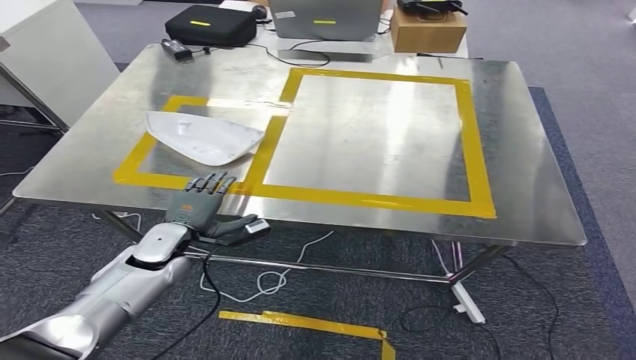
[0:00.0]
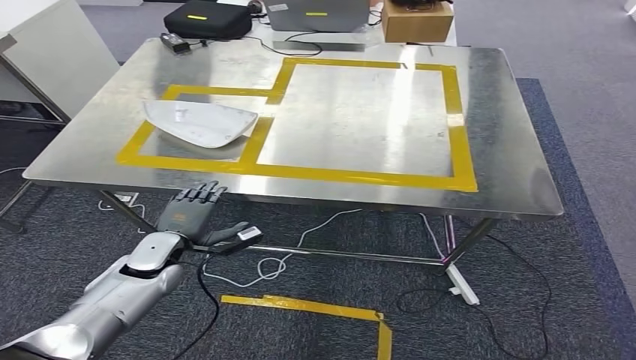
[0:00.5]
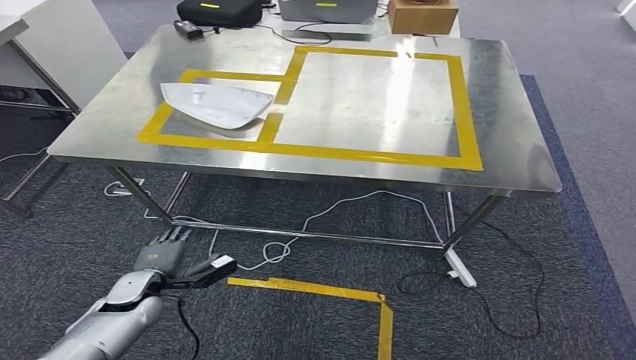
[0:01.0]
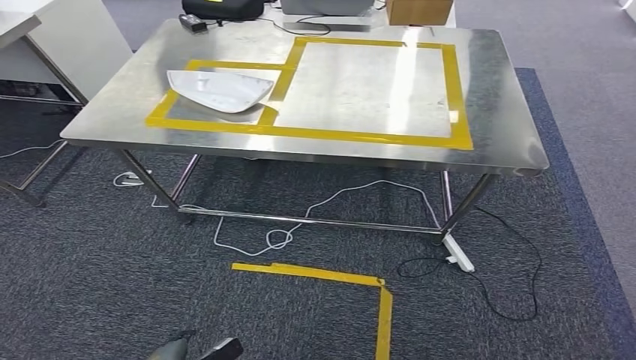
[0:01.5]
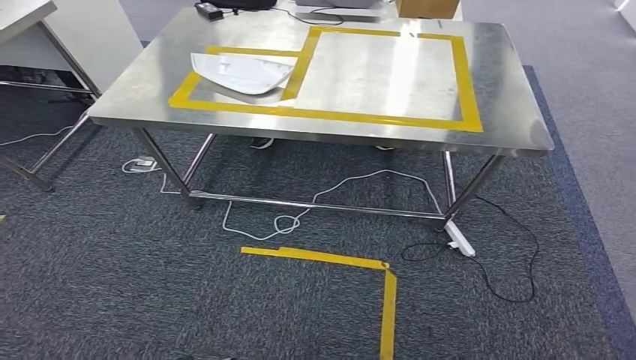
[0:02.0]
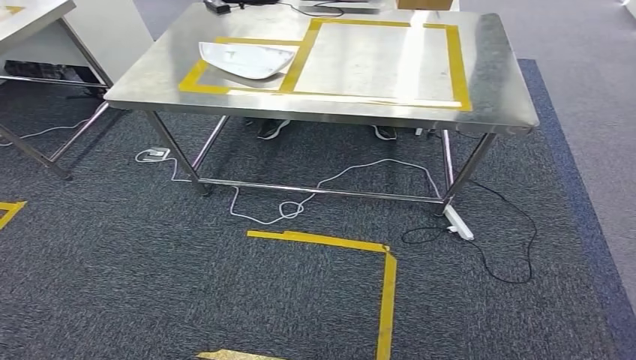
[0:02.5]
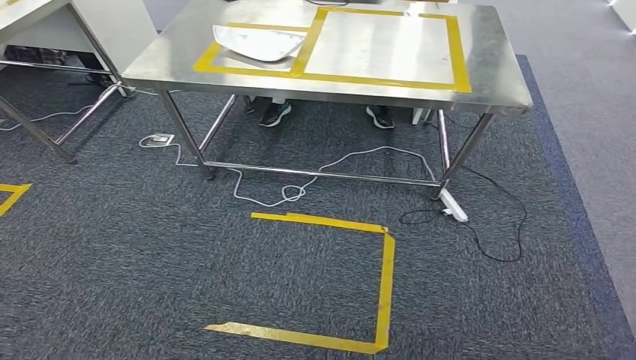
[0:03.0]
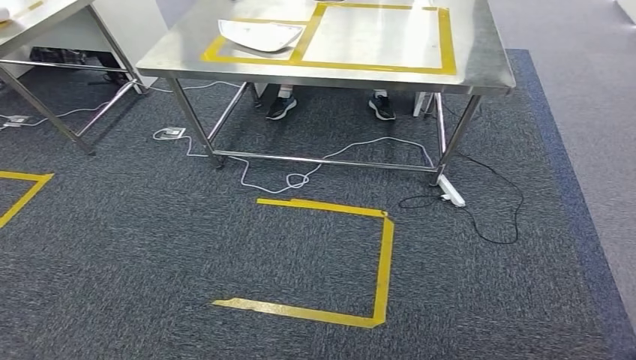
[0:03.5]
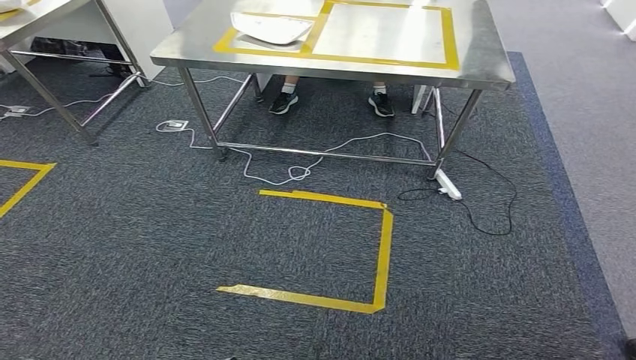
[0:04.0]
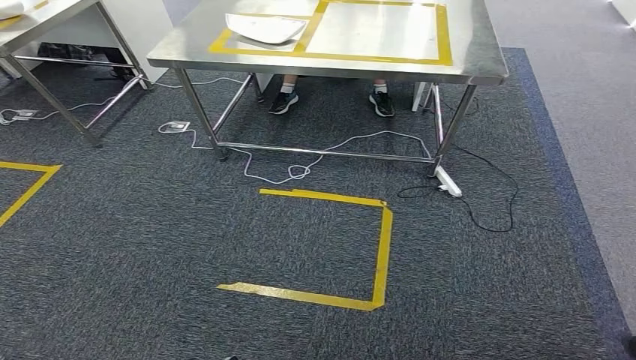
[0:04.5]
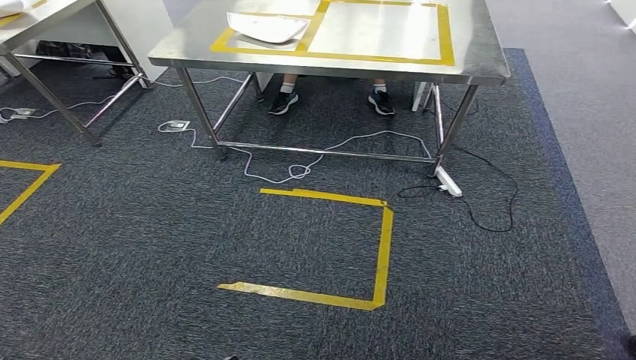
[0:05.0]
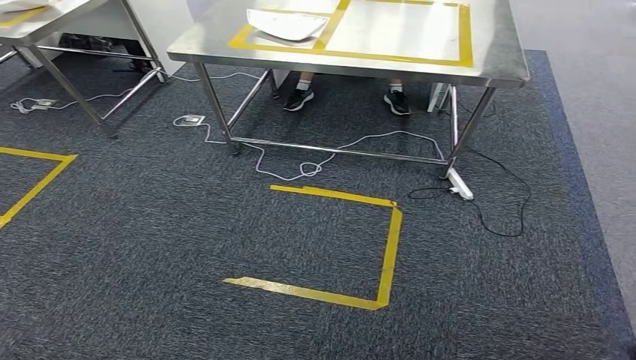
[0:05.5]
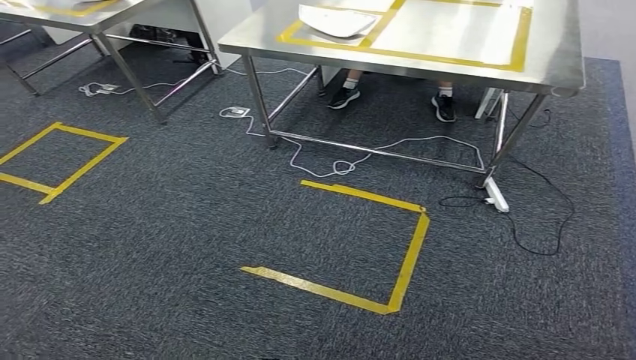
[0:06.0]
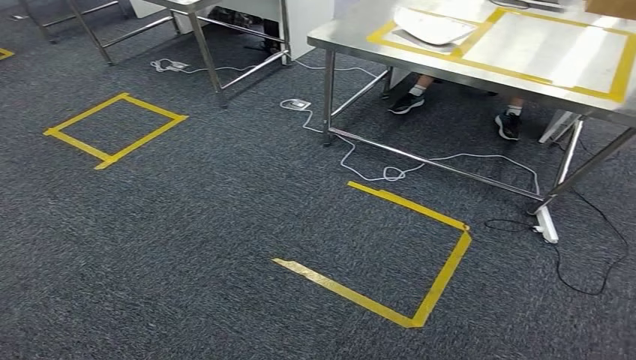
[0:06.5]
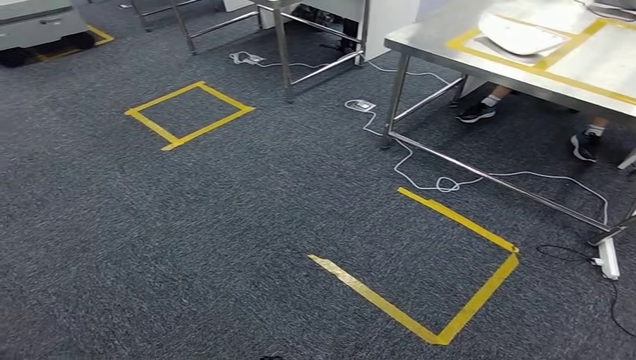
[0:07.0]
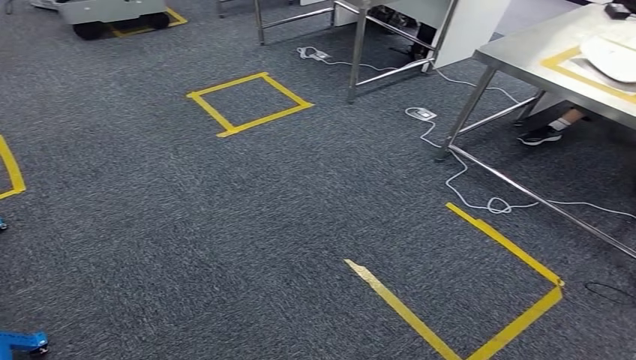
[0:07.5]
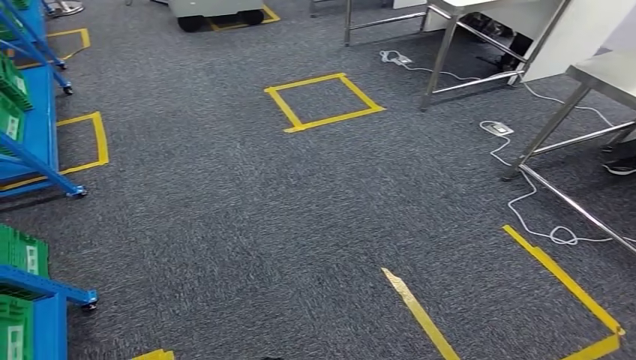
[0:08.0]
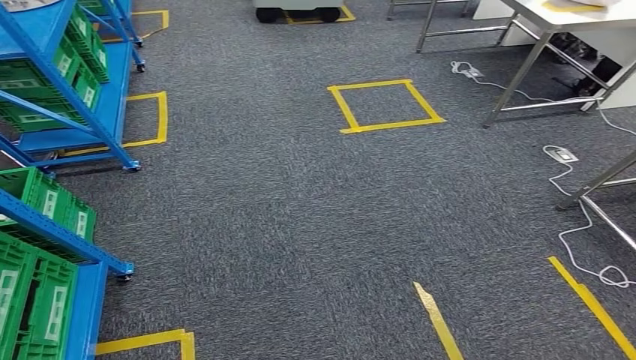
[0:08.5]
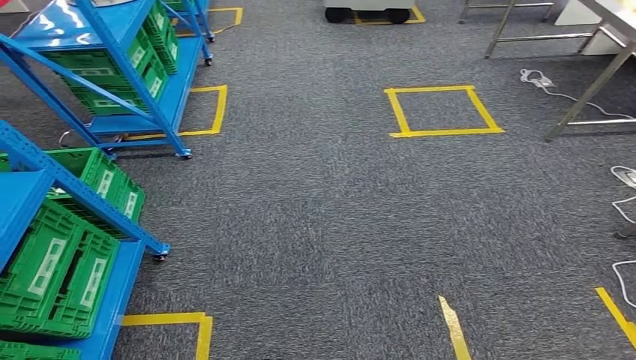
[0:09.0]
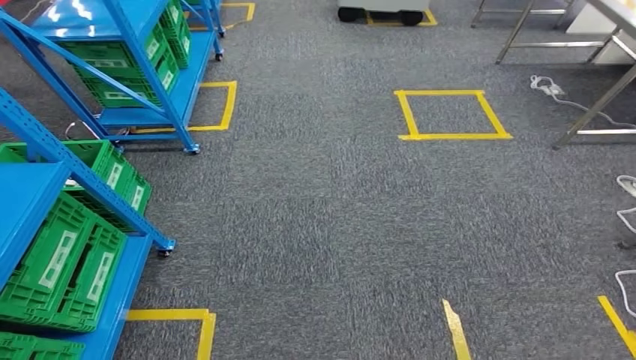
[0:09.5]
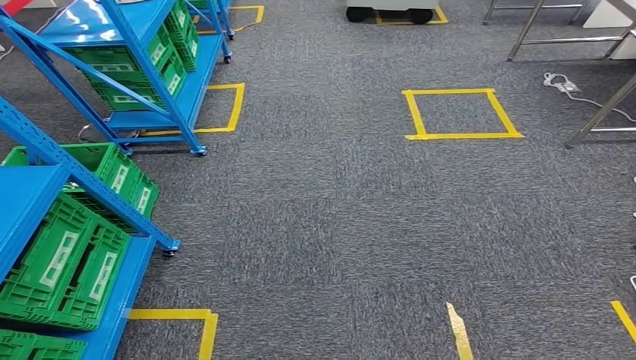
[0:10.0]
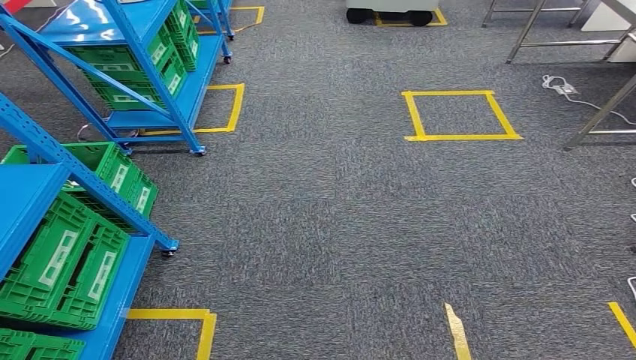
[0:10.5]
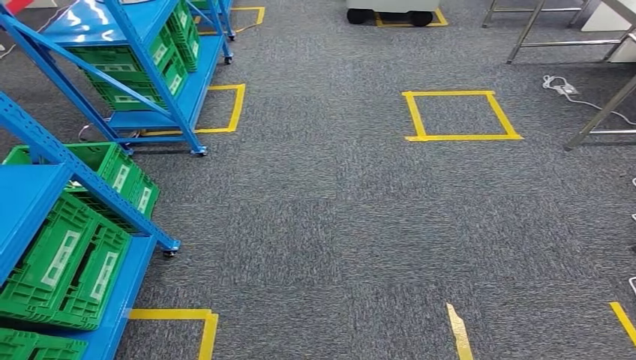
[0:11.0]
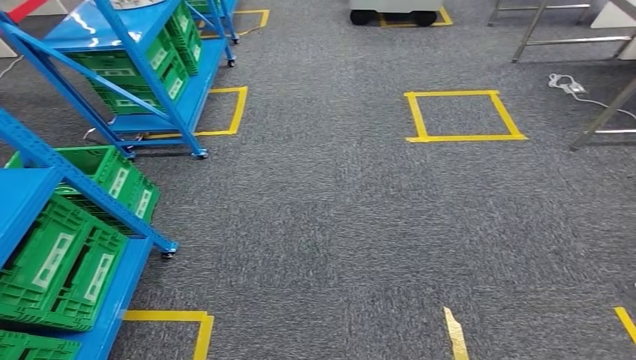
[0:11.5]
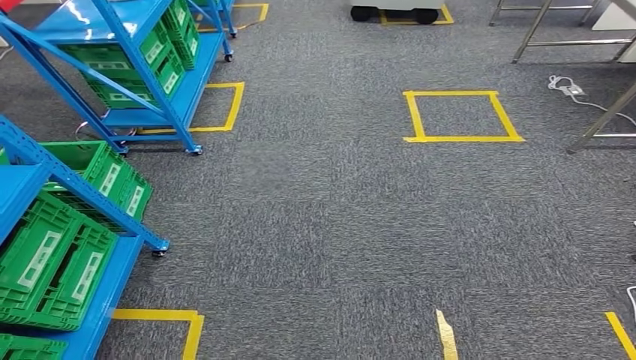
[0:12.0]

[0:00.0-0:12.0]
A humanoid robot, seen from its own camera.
0:10.0 to 0:12.0: Neither hand changes place.

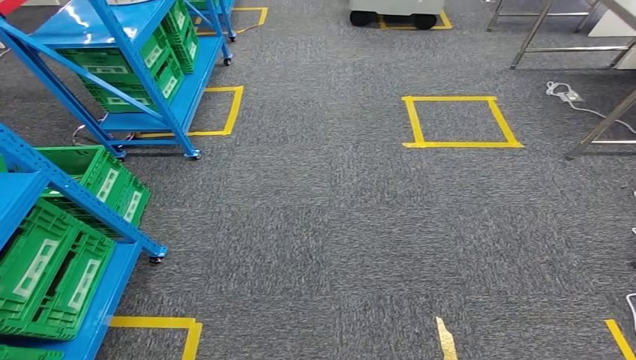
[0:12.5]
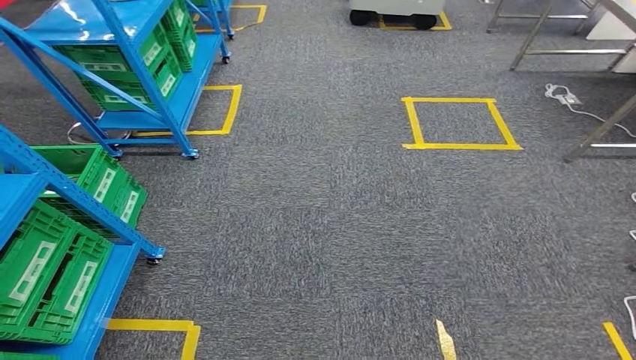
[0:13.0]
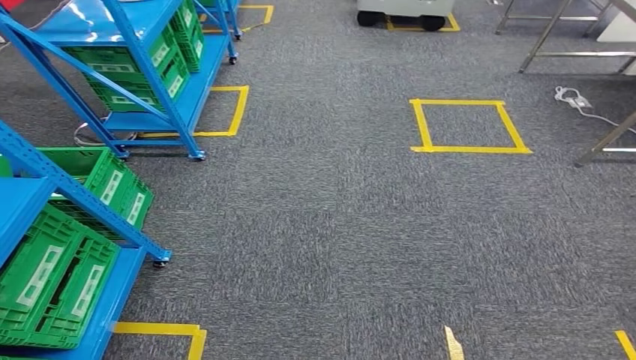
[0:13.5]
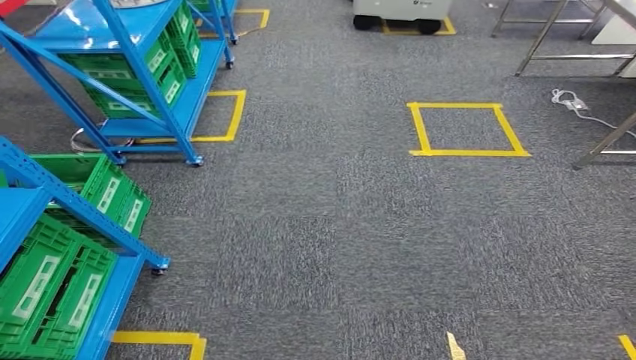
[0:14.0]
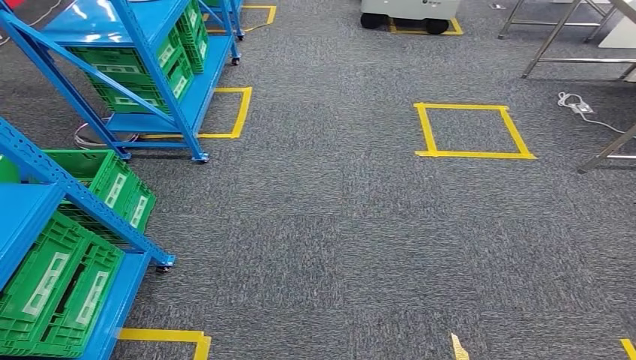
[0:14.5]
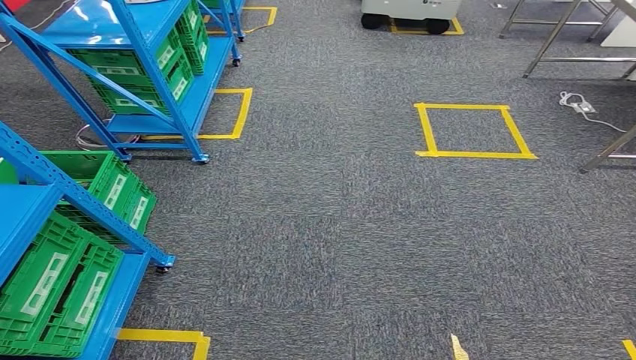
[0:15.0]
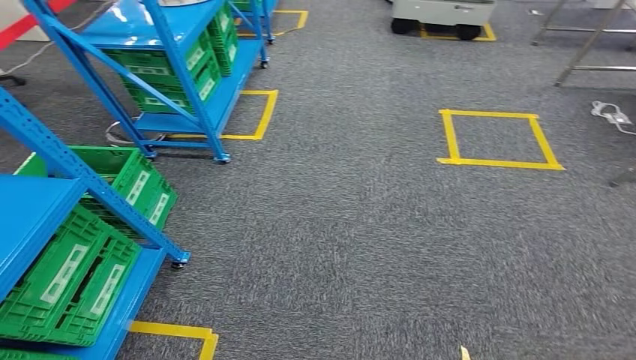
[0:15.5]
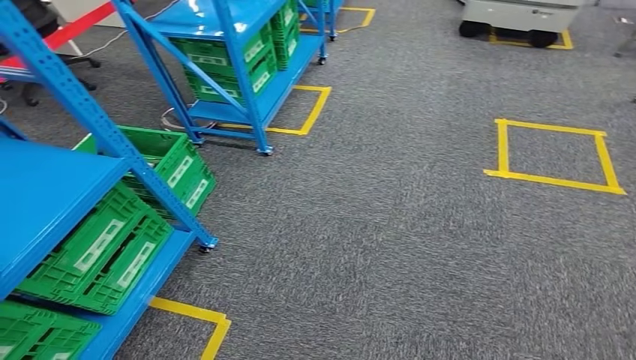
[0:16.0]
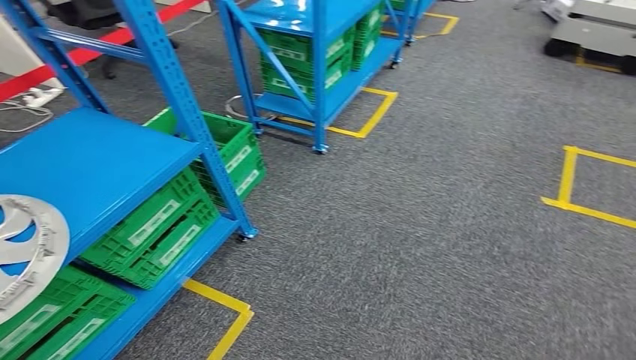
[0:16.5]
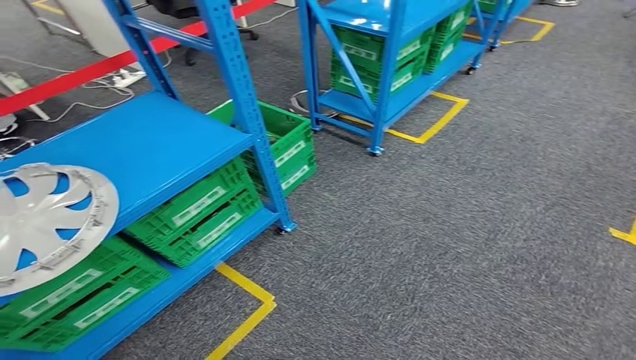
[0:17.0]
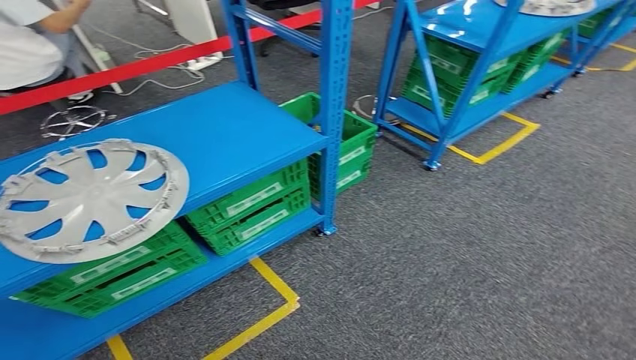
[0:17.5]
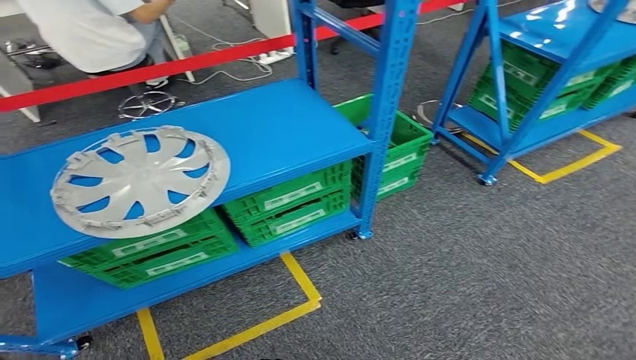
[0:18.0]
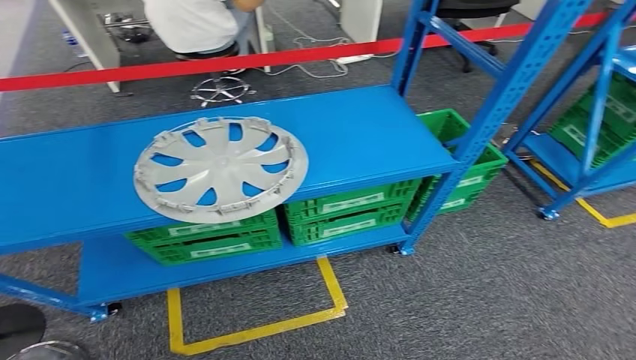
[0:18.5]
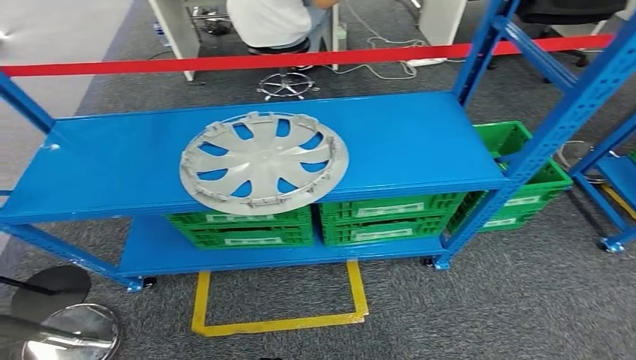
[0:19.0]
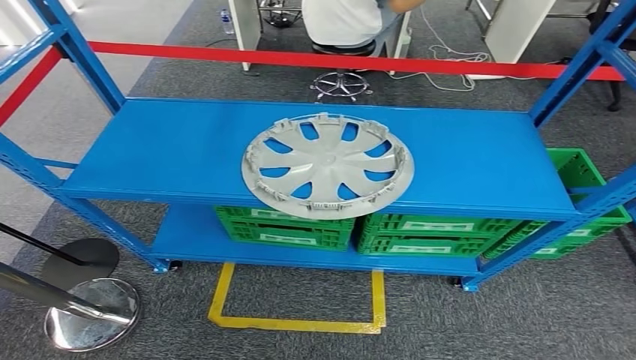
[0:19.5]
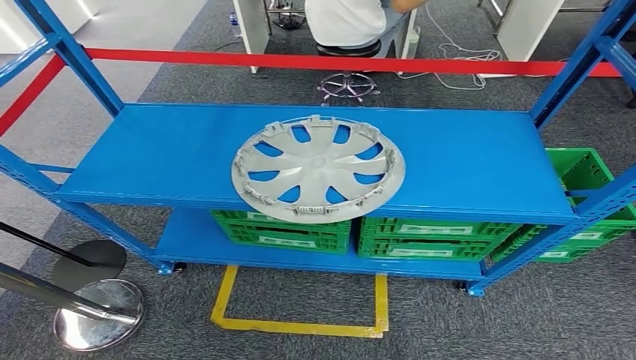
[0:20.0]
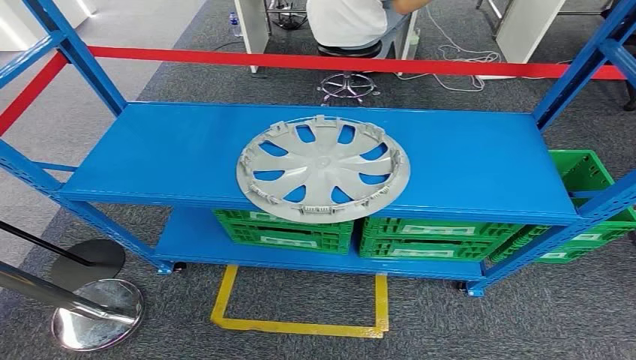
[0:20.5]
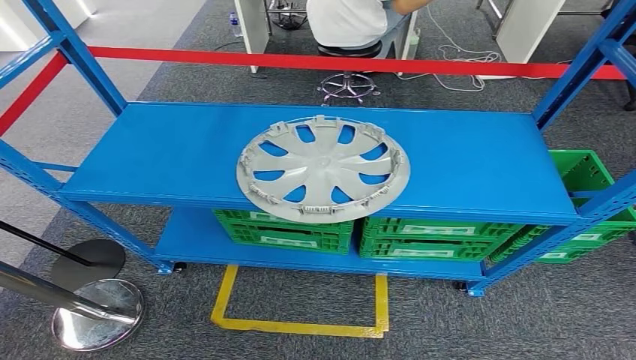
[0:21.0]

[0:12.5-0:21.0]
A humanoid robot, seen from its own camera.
Step, 0:12.5 to 0:21.0: Move to the initial position at the workbench.
